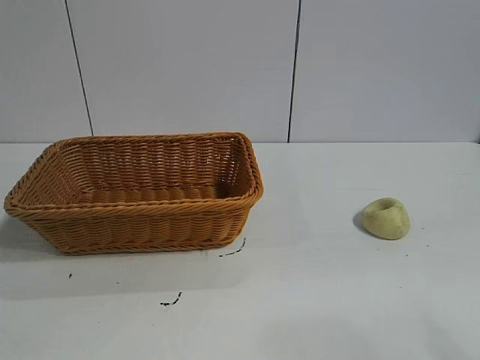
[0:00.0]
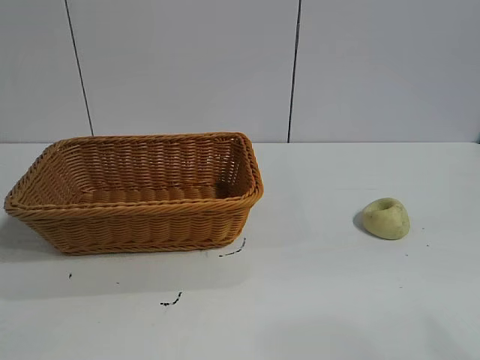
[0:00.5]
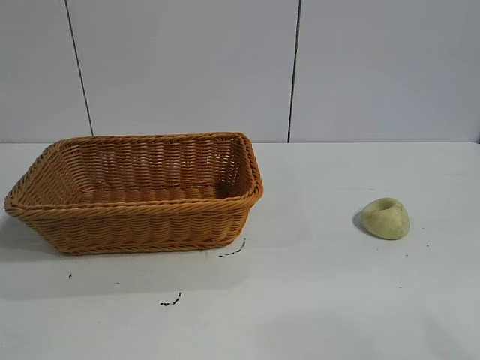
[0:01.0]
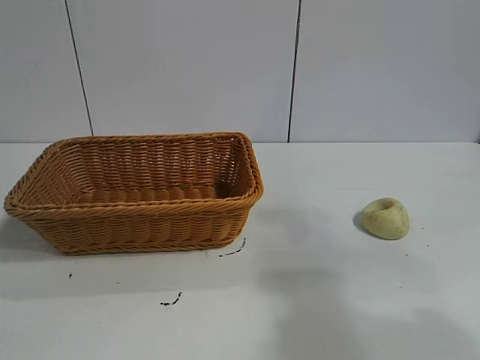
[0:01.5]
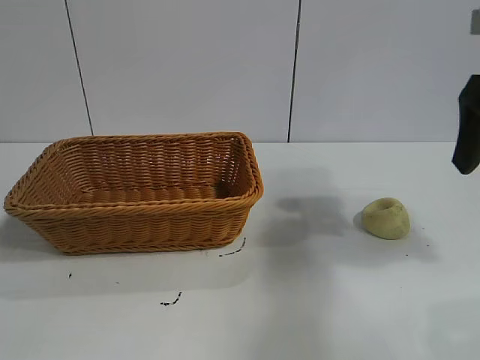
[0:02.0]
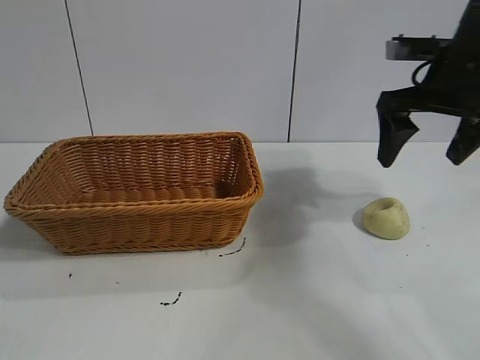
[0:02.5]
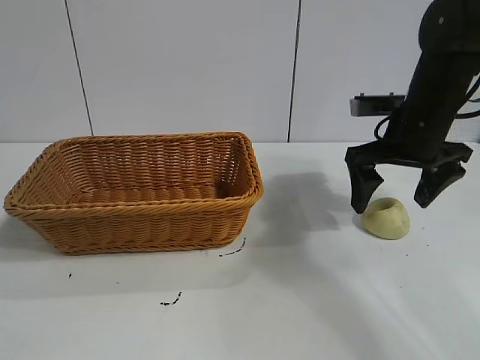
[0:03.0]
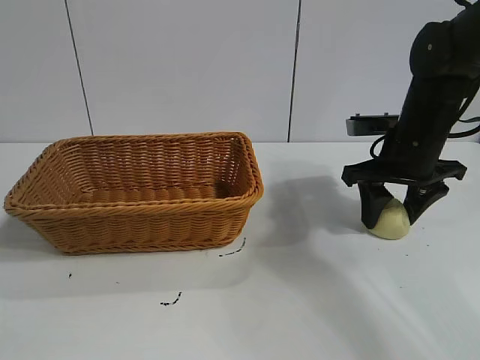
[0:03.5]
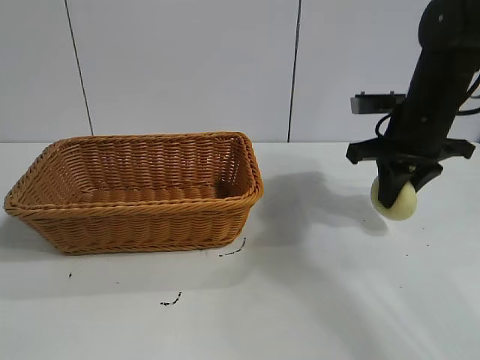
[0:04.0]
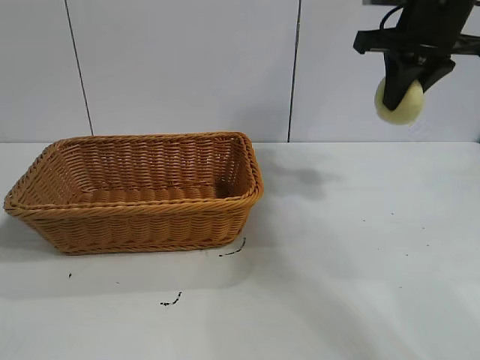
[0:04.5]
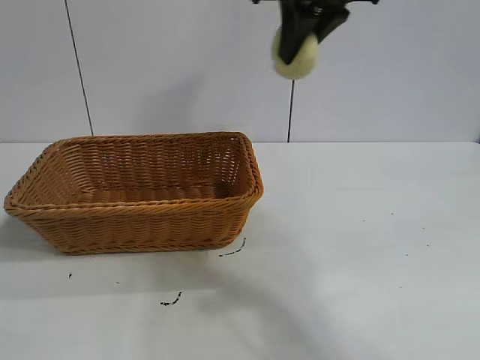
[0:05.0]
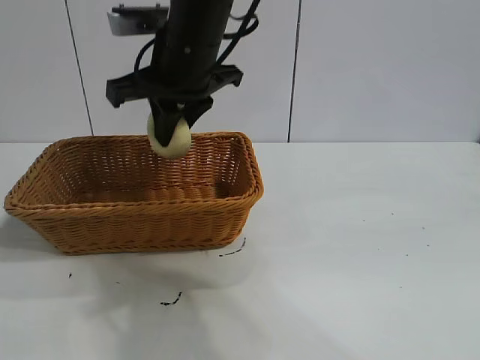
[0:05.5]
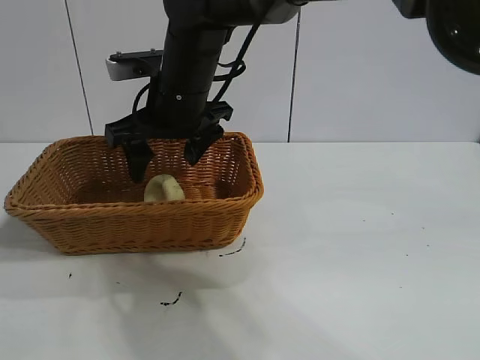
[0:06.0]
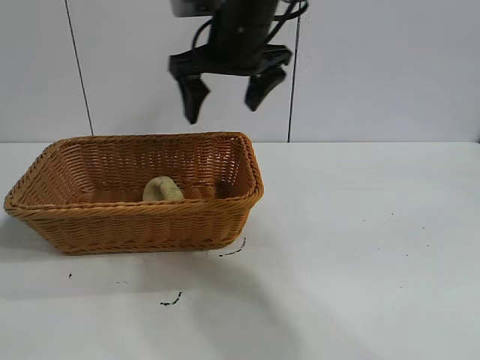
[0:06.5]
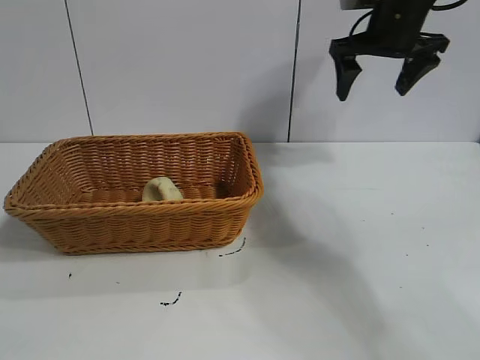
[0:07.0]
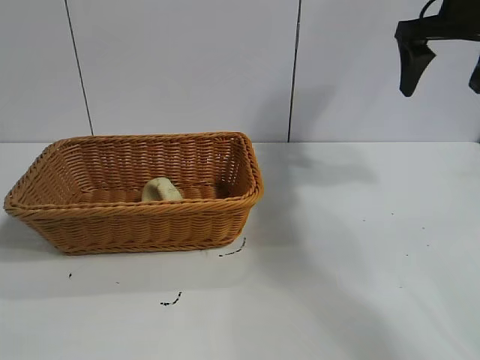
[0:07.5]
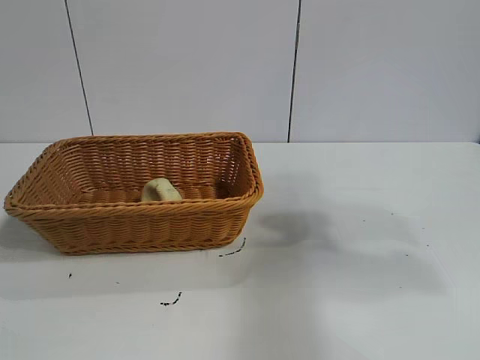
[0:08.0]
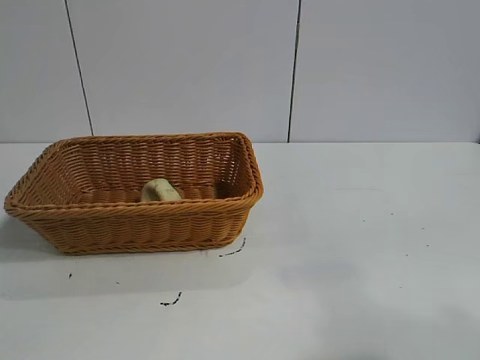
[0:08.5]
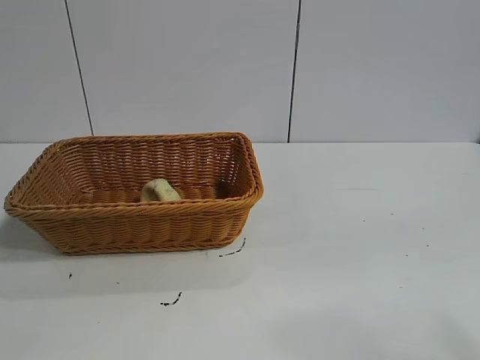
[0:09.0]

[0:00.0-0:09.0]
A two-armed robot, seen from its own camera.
Task of the whole recording: pick up the egg yolk pastry and put it into the basket.
Step, 0:01.0 to 0:03.5: Grasp egg yolk pastry with right gripper.
Step, 0:04.0 to 0:06.0: Place the egg yolk pastry in the basket with right gripper.
